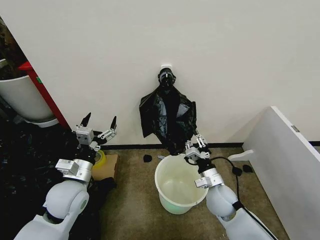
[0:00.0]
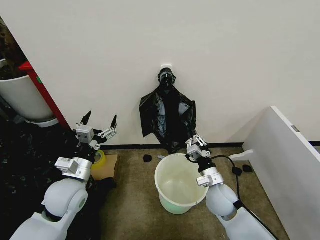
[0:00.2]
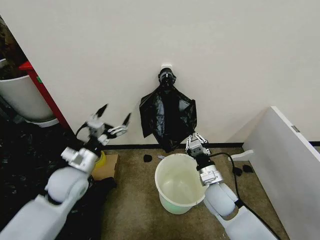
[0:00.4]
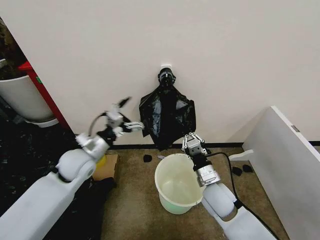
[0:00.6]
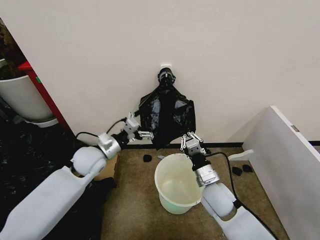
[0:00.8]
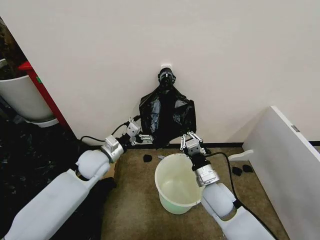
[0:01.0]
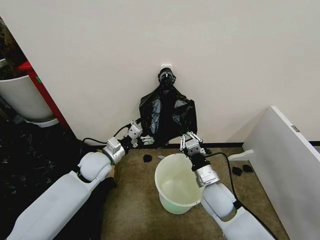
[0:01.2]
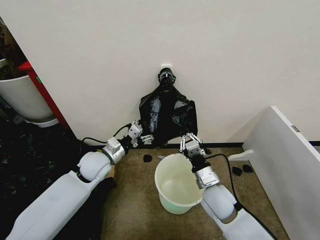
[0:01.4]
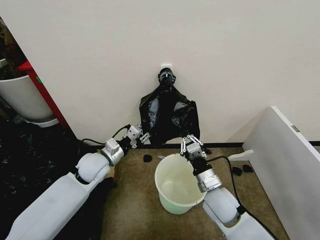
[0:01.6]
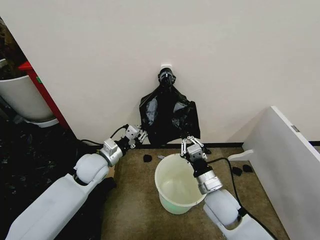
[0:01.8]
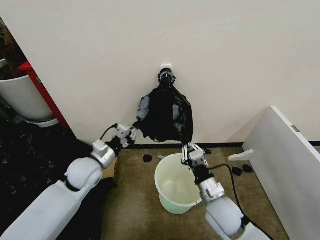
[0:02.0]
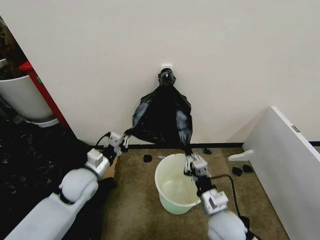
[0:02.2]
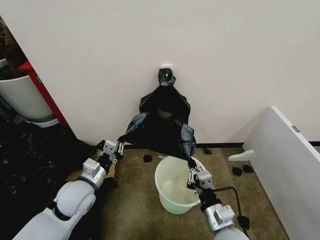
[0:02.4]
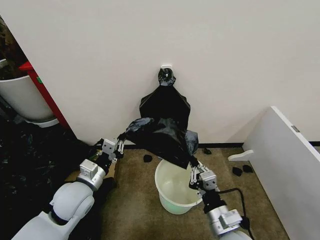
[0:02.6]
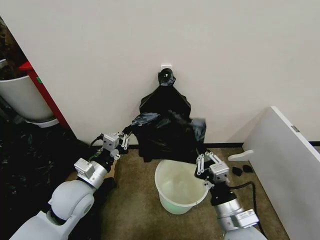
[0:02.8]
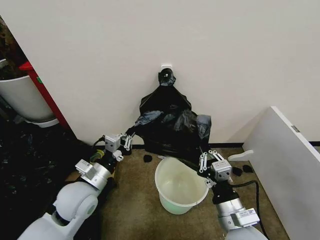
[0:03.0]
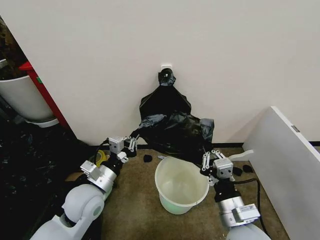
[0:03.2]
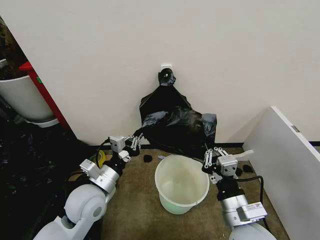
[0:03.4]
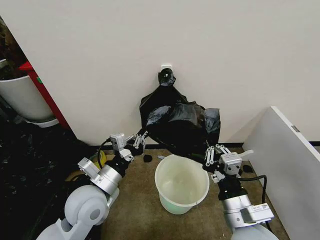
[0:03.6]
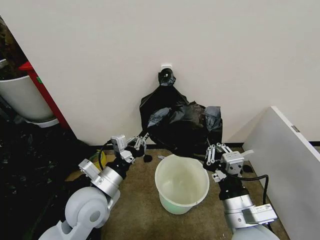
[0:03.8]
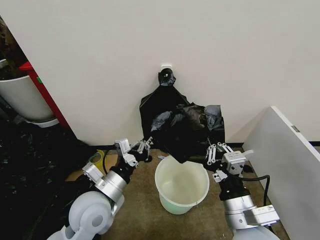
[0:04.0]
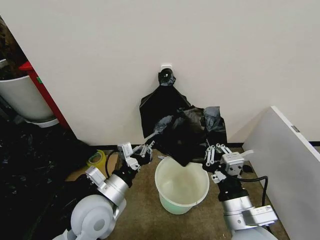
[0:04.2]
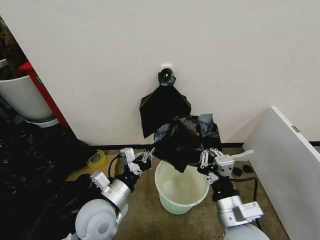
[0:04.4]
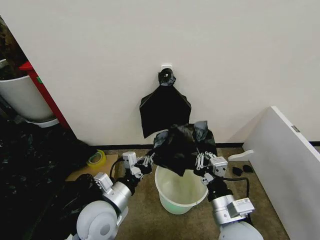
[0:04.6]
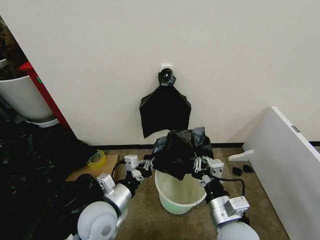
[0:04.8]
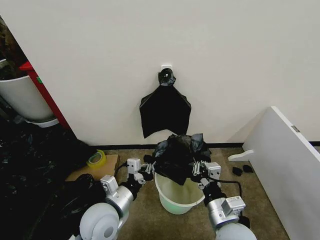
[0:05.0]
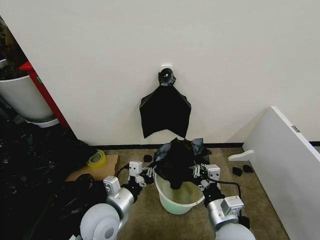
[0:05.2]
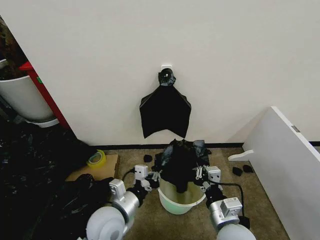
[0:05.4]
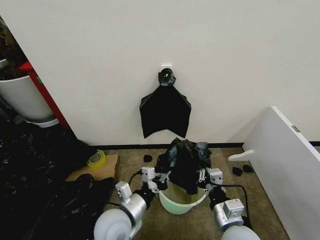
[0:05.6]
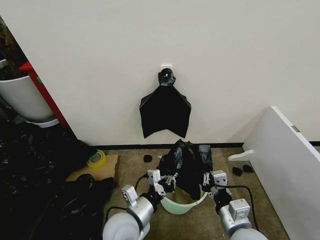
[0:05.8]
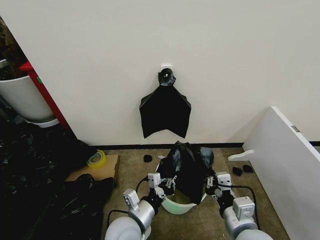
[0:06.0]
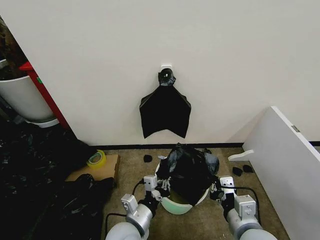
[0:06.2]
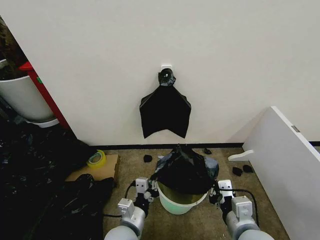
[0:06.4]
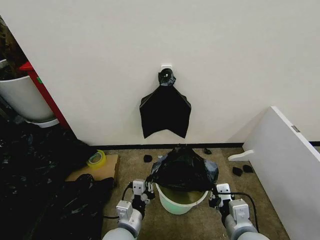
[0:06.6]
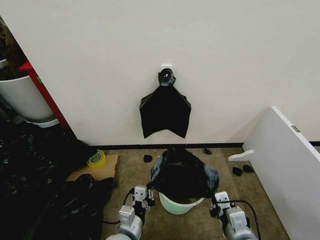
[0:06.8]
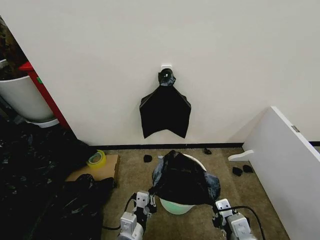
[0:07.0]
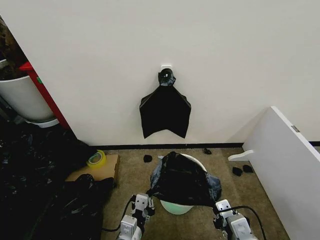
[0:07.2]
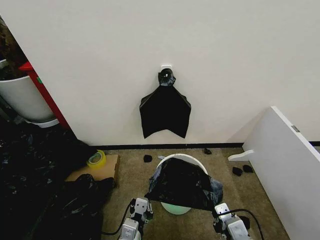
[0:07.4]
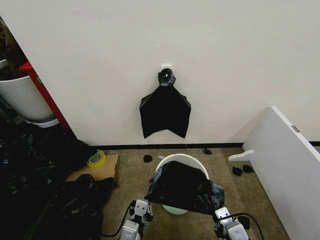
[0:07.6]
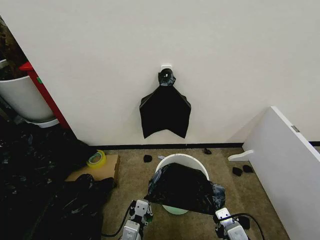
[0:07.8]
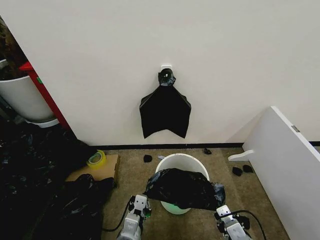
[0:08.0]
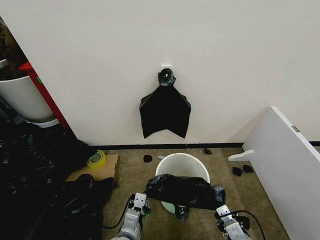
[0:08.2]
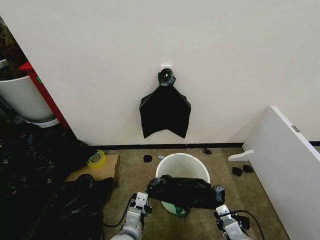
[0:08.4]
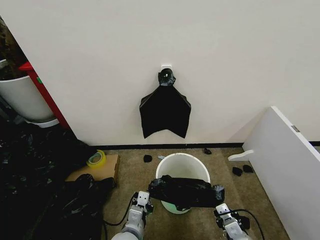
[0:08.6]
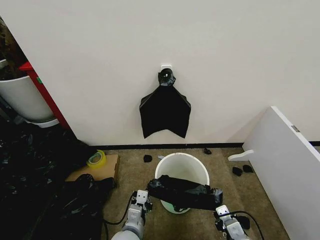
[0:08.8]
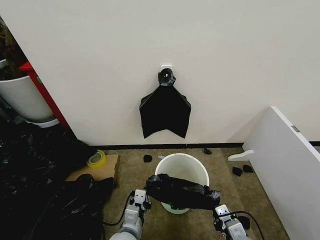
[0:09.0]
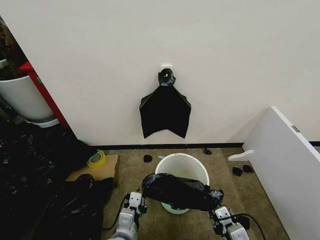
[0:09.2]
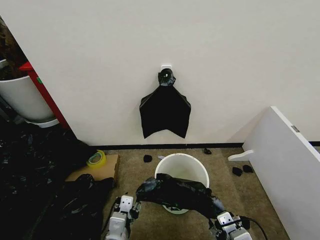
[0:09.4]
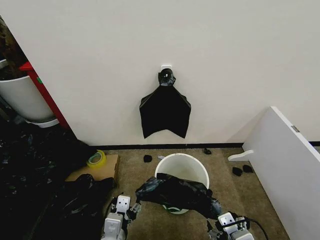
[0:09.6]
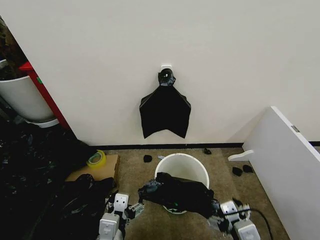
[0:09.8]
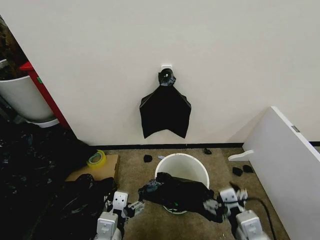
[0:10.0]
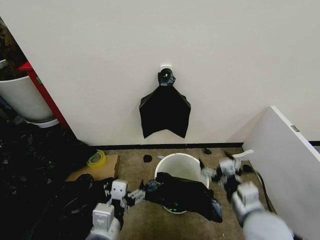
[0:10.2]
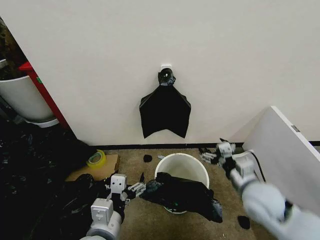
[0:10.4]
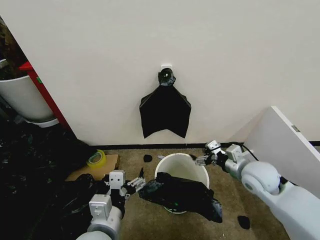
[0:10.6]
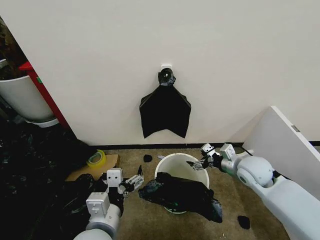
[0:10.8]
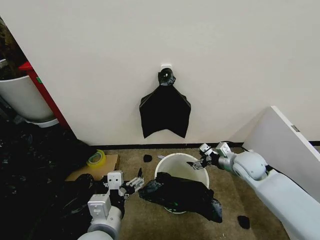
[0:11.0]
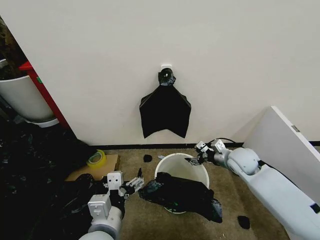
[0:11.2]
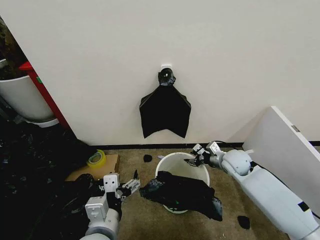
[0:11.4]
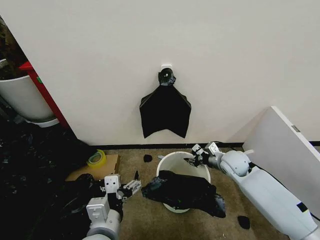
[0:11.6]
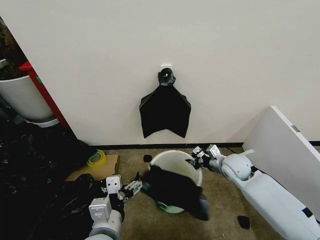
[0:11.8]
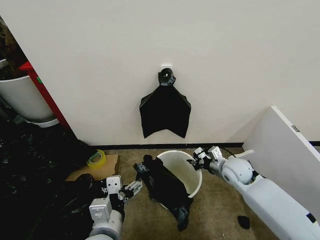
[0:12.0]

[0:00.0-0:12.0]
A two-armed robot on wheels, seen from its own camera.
Task of the whole recording: Place the garbage bag over the trash bin.
0.0 to 1.6 s: The right gripper changes place by approximately 5 cm; the left gripper travels forward by approximately 10 cm, and closes up.
1.6 to 3.0 s: The left gripper shifts about 10 cm backward, and closes up, while the right gripper moves backward and upward, some 15 cm.
3.0 to 4.4 s: The left gripper travels to the right by some 5 cm.
4.4 to 6.0 s: The left gripper moves downward and to the right, approximately 10 cm.
6.0 to 7.6 s: The left gripper shifts about 5 cm backward.
7.6 to 9.0 s: The right gripper moves downward, approximately 5 cm; the left gripper ends up some 5 cm from where it was.
9.0 to 10.4 s: The left gripper moves upward, roughly 15 cm, and opens. Meanwhile the right gripper travels forward and upward by roughly 15 cm, and opens.
10.4 to 12.0 s: The right gripper is displaced forward and downward by approximately 15 cm, and closes its fingers.

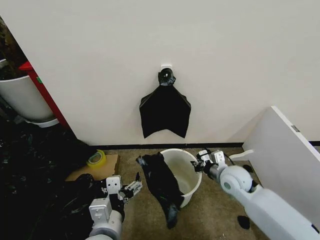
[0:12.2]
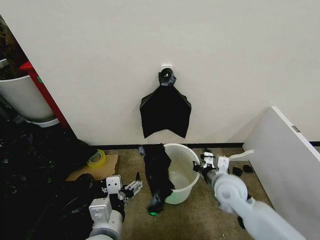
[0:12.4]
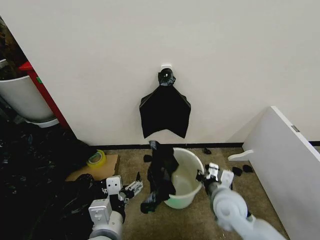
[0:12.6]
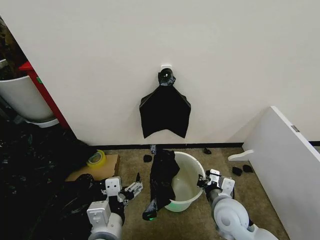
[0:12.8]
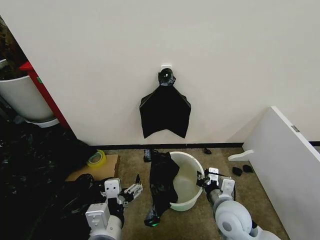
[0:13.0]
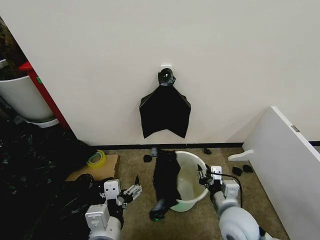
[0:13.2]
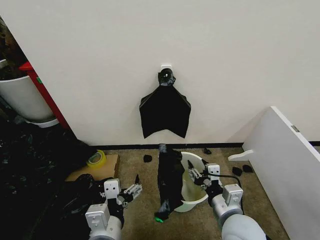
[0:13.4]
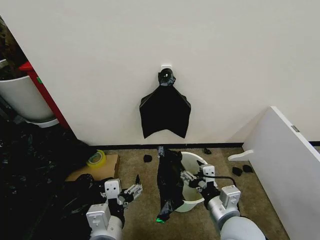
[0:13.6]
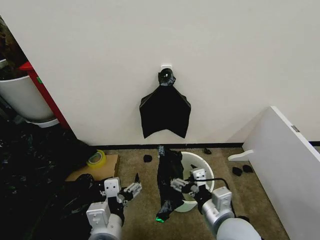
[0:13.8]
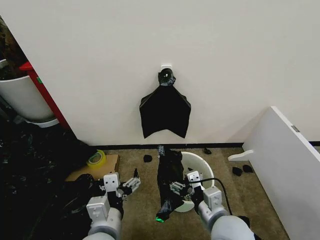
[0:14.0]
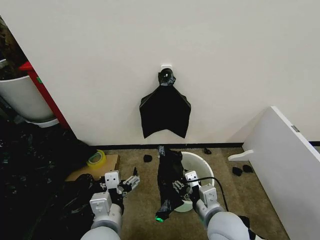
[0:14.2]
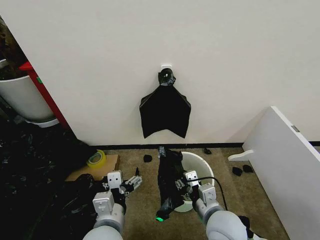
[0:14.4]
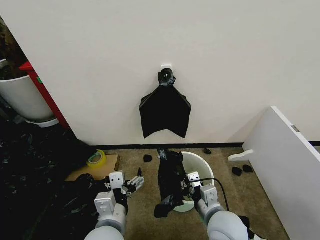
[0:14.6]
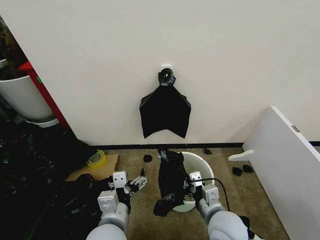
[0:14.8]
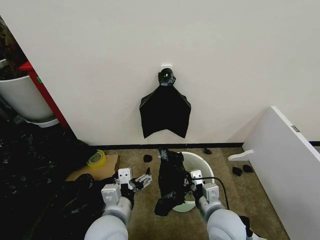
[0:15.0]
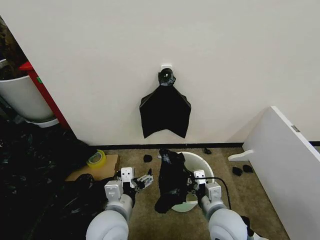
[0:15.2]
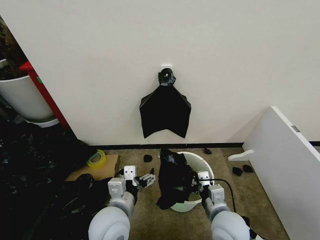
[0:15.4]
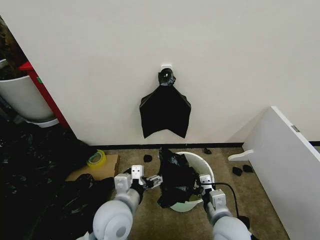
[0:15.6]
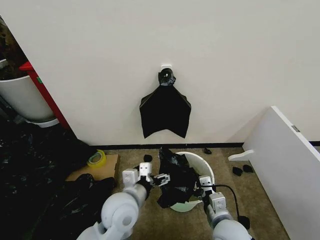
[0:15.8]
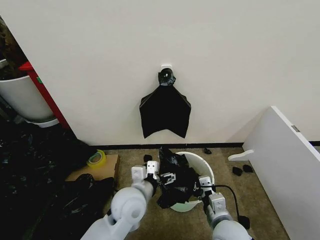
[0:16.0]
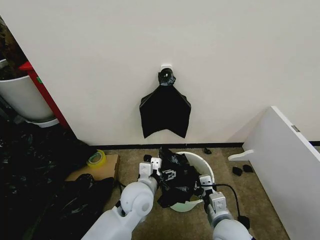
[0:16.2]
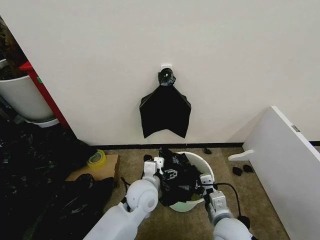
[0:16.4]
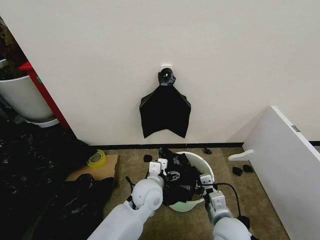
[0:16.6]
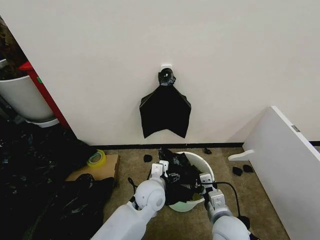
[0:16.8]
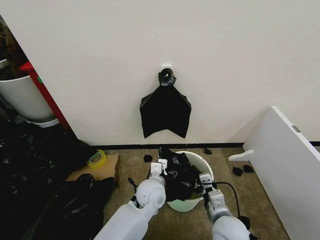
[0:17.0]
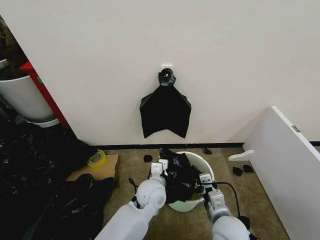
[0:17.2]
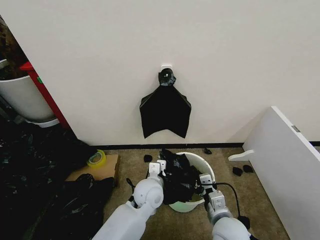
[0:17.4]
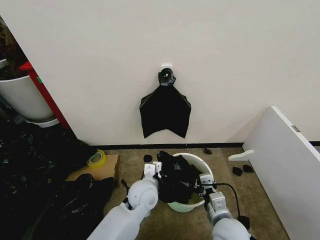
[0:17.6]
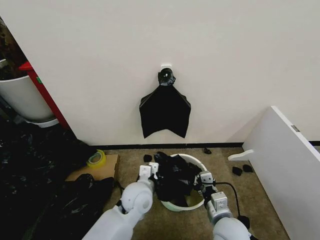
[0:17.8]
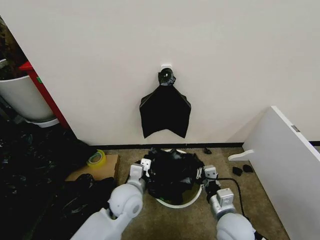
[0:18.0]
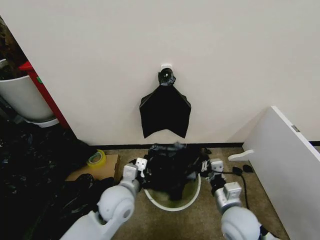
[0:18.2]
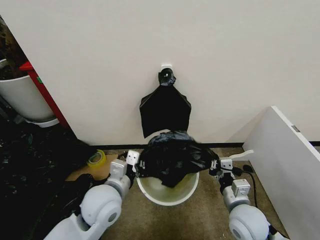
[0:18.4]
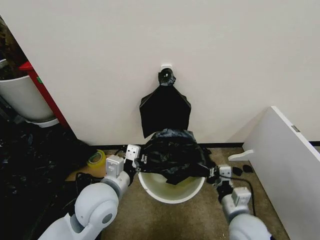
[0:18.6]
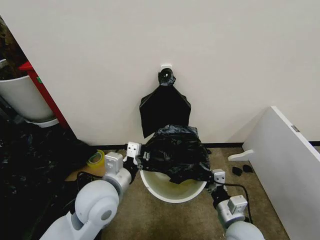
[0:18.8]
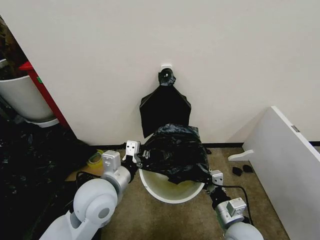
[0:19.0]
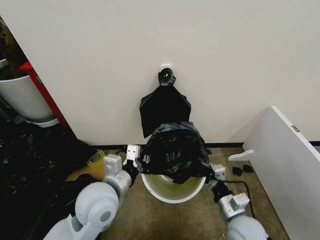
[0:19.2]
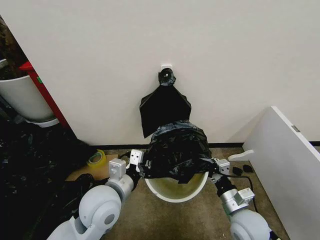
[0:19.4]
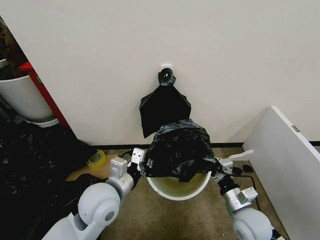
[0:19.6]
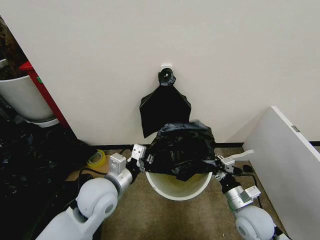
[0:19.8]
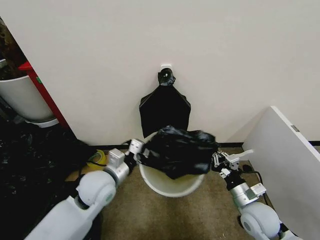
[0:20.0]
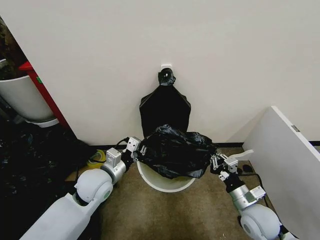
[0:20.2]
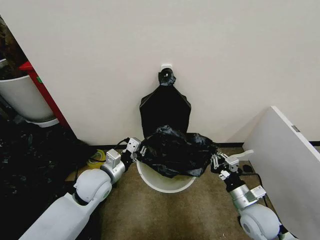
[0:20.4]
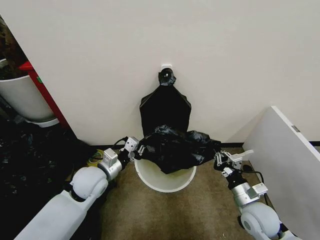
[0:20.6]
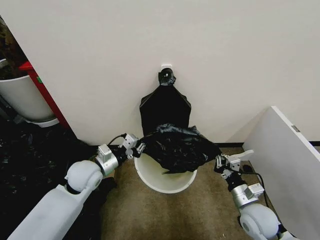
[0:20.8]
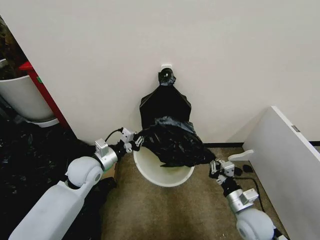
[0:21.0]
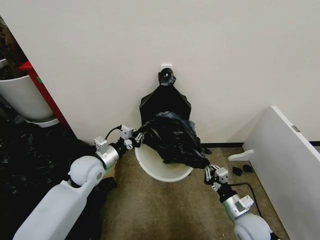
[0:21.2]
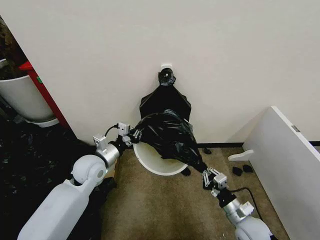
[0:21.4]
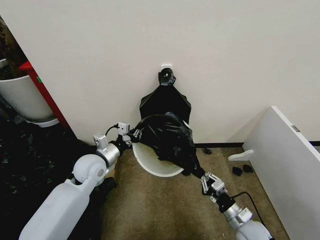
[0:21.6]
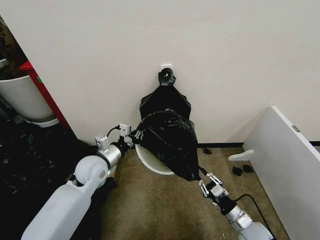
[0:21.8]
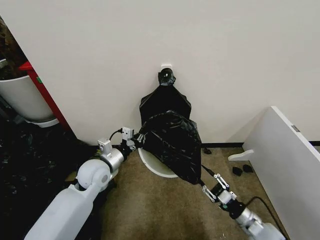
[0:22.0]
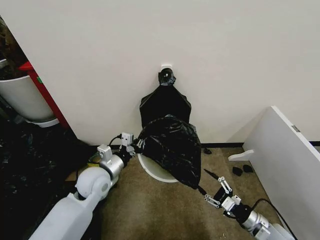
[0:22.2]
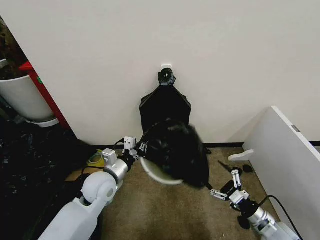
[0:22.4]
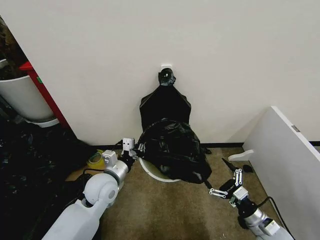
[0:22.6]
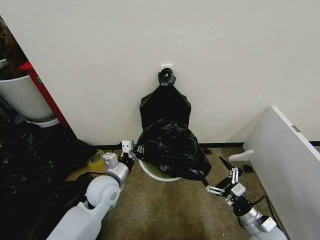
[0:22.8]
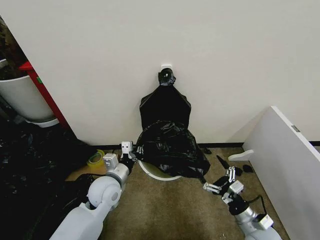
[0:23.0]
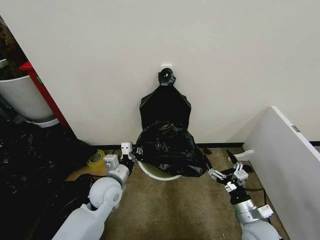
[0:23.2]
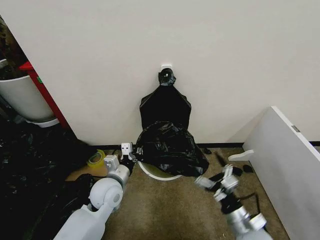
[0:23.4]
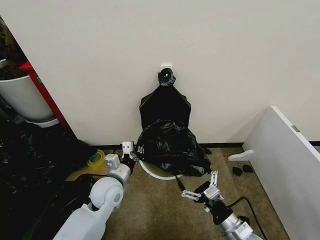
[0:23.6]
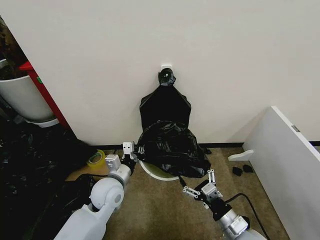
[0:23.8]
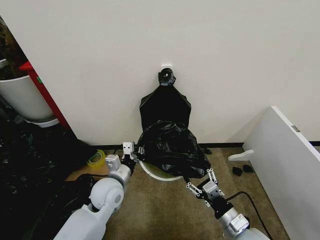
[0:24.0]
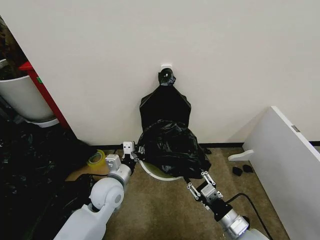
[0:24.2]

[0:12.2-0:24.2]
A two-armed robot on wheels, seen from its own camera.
Task of the whole recording: Place the garbage bag over the trash bin.
12.2 to 13.8 s: The right gripper heads backward and to the left, covering approximately 20 cm, and opens up.
13.8 to 15.2 s: The left gripper shifts approximately 5 cm forward, while the right gripper moves downward, some 5 cm, and closes up.
15.2 to 16.6 s: The left gripper shifts roughly 15 cm forward, to the right and downward.
16.6 to 18.2 s: The left gripper is displaced to the left by roughly 10 cm, and closes.
18.2 to 19.8 s: The right gripper goes about 5 cm to the right.
19.8 to 21.2 s: The left gripper goes approximately 10 cm forward and to the left.
21.2 to 22.6 s: Both grippers travel together to the right, approximately 5 cm. The right gripper opens up.
22.6 to 24.2 s: The right gripper heads to the left and upward, covering about 10 cm, and closes up.
